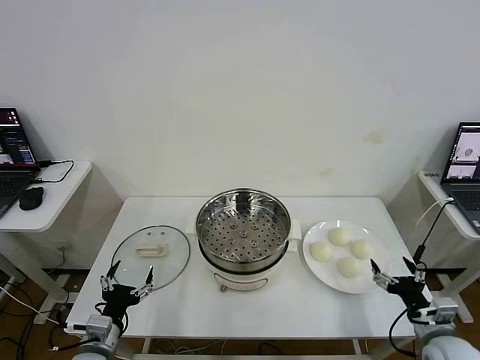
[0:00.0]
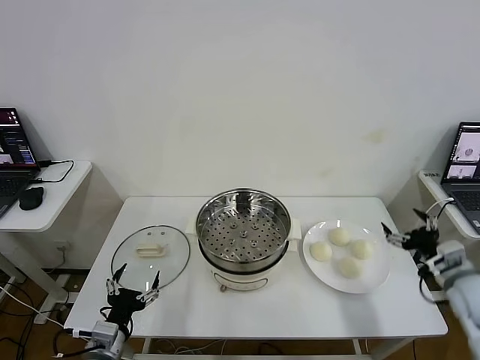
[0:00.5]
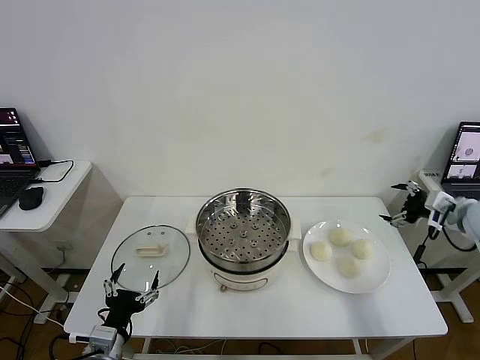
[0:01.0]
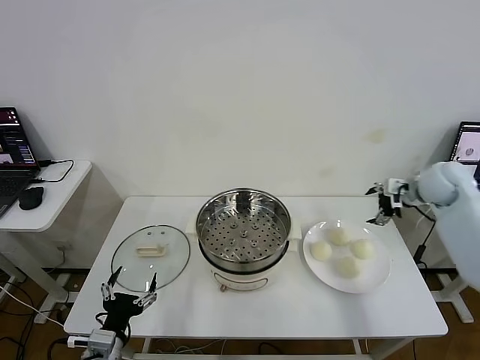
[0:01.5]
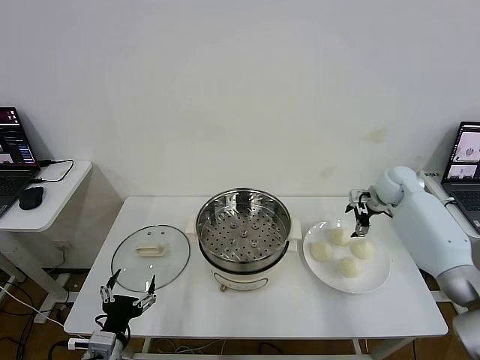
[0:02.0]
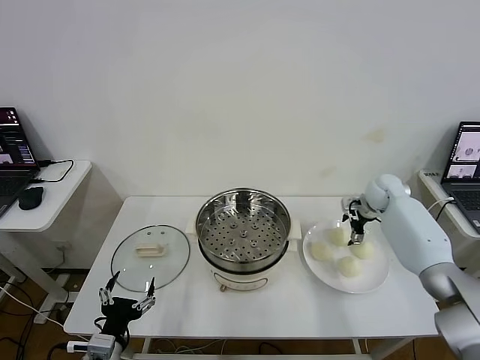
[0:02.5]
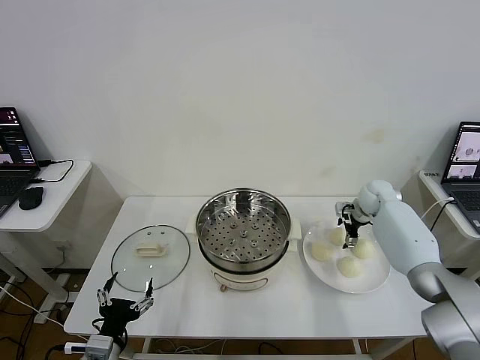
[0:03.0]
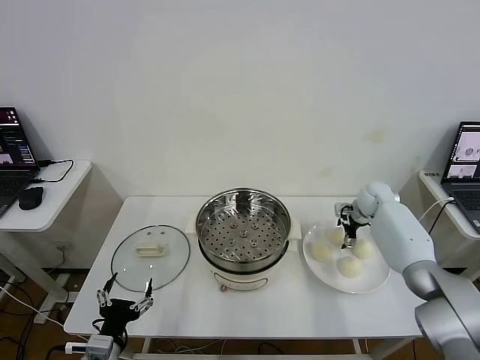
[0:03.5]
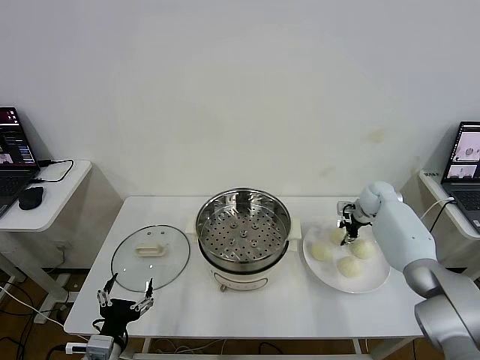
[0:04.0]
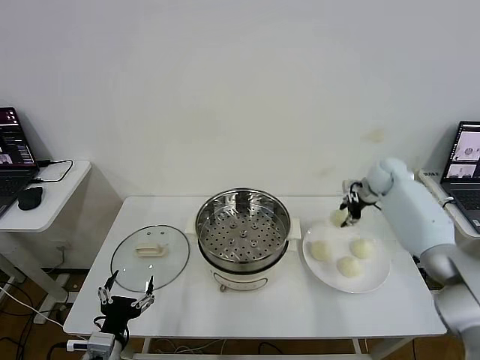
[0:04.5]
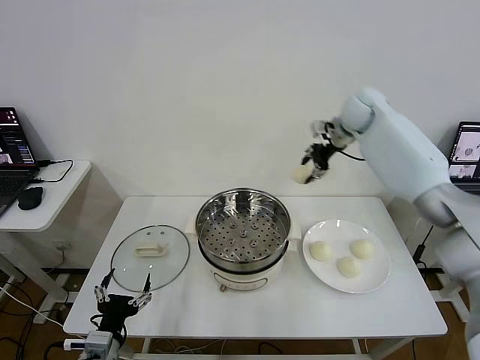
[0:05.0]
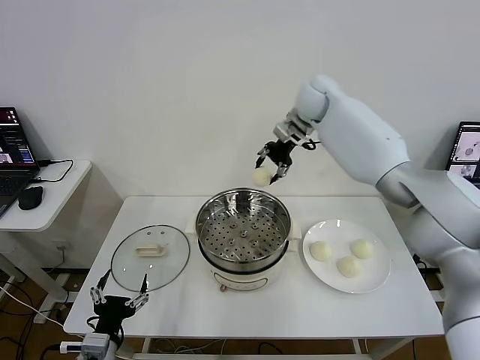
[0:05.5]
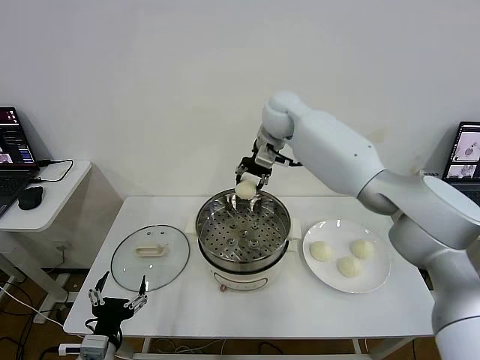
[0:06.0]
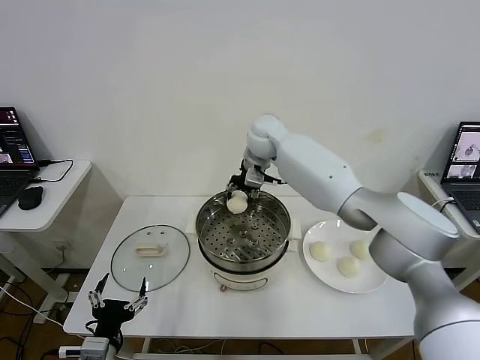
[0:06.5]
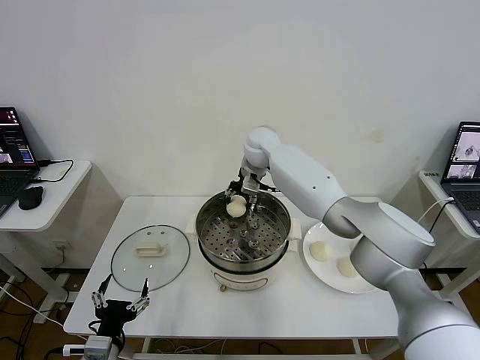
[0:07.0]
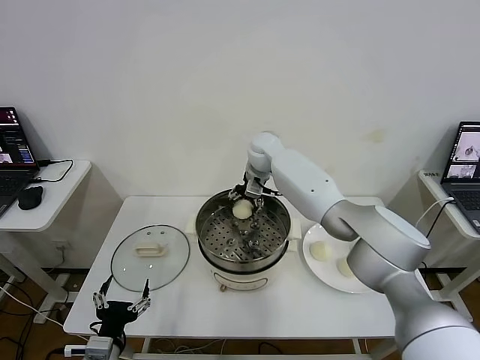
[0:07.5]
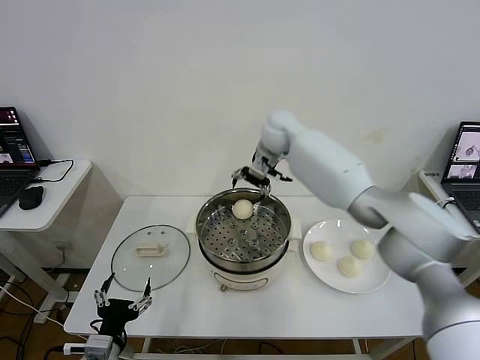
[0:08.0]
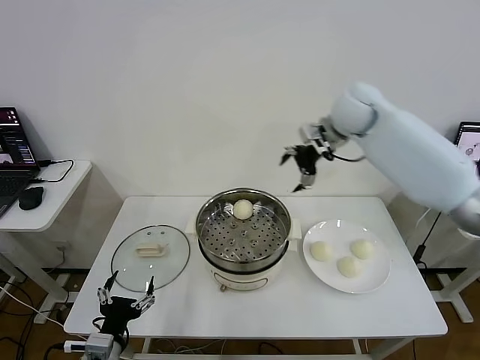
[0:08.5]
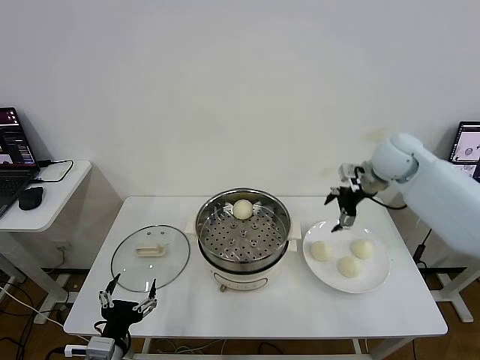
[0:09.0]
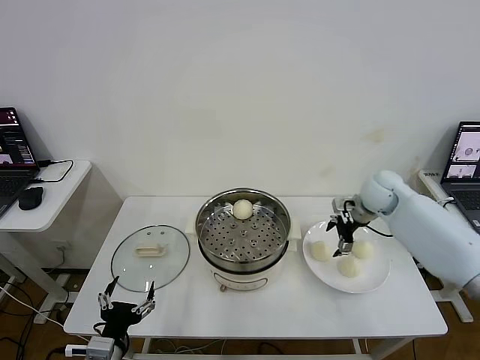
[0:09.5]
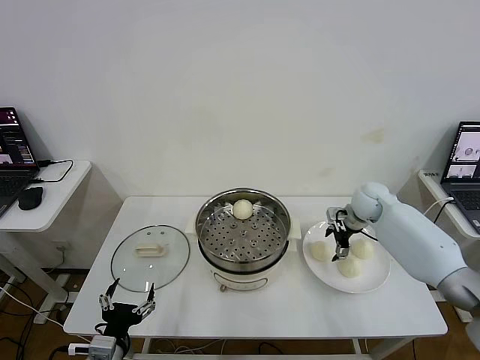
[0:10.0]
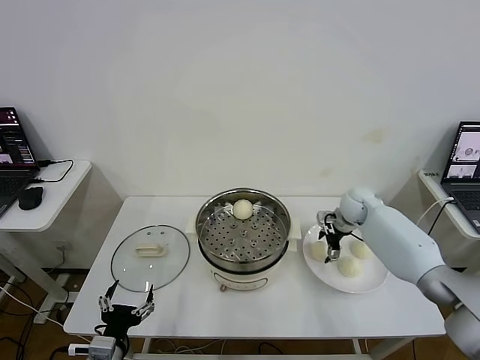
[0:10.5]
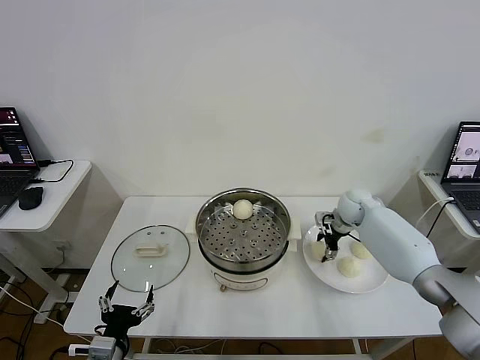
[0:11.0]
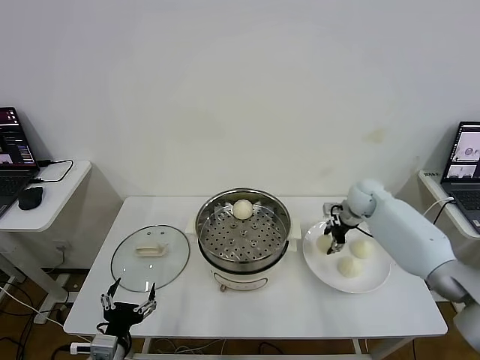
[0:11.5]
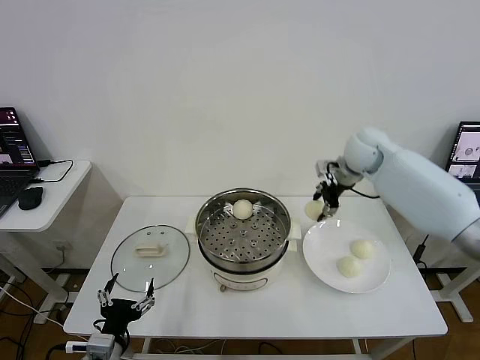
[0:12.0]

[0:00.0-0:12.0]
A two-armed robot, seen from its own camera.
Task of the whole recording: take steamed baozi put them in steamer then cover it.
Step, 0.0 to 3.5 s: Grasp the baozi in the plate with right gripper.
Step, 4.0 to 7.5 s: Place the baozi on the steamer with right gripper.
Step, 8.0 to 11.0 s: Grasp the baozi in the plate with right gripper.
2.0 to 4.0 s: The right gripper heads downward, covering about 5 cm, and closes its fingers.
4.0 to 6.0 s: The right gripper heads to the left and upward, covering some 40 cm.
6.0 to 8.0 s: The right gripper opens up.
8.0 to 10.0 s: The right gripper is displaced to the right and downward by approximately 30 cm.
10.0 to 12.0 s: The right gripper shifts some 15 cm upward, and closes its fingers.

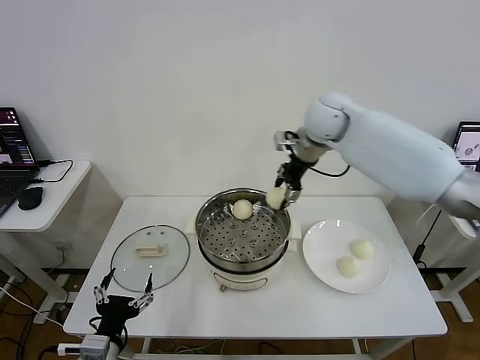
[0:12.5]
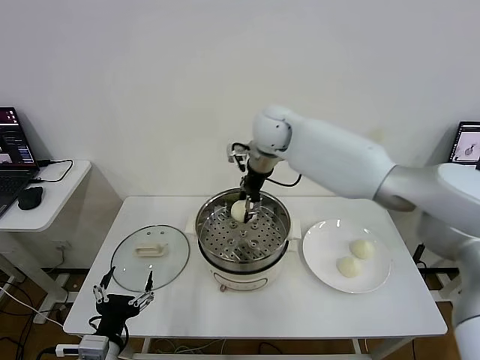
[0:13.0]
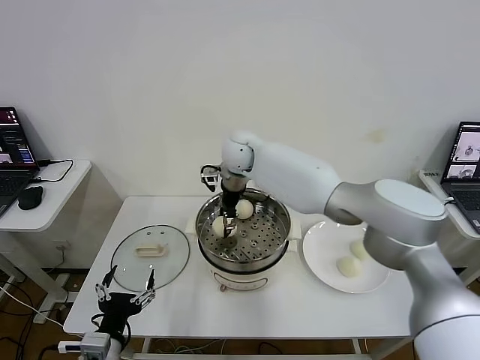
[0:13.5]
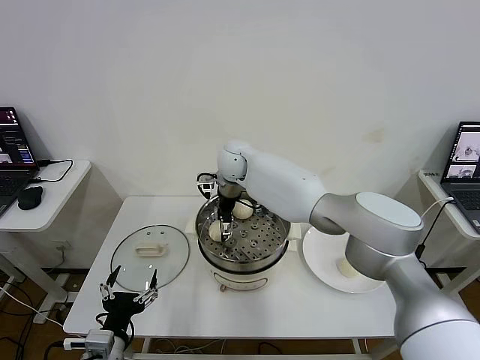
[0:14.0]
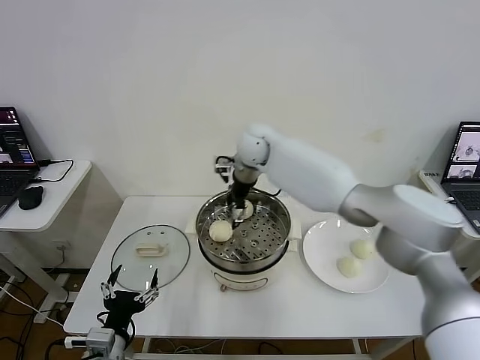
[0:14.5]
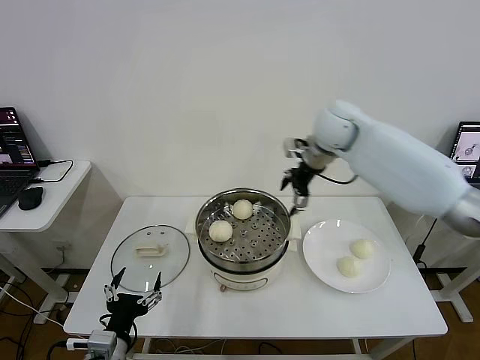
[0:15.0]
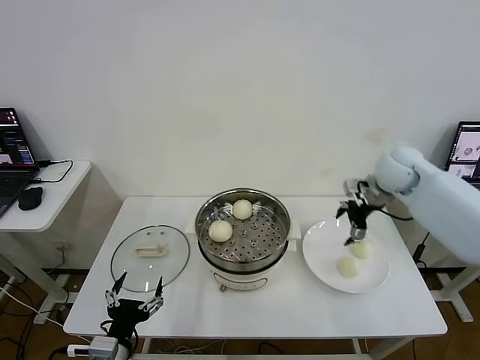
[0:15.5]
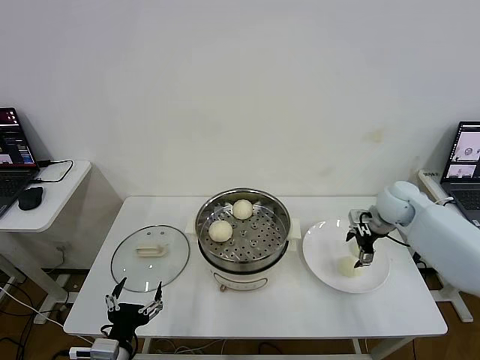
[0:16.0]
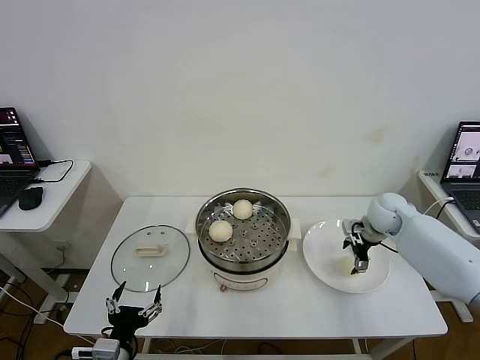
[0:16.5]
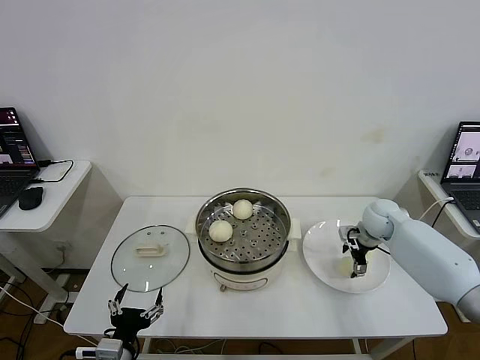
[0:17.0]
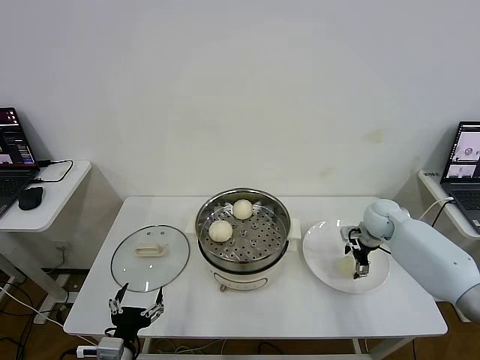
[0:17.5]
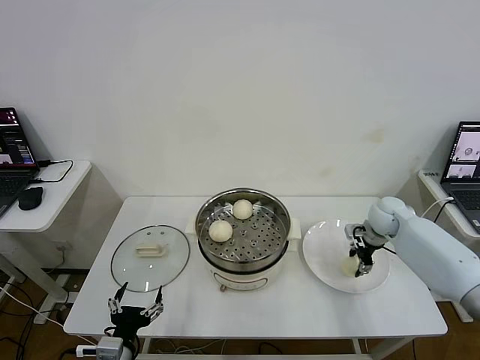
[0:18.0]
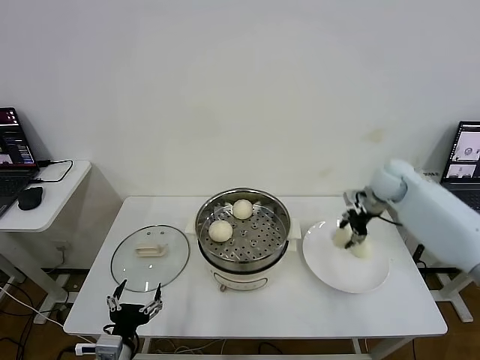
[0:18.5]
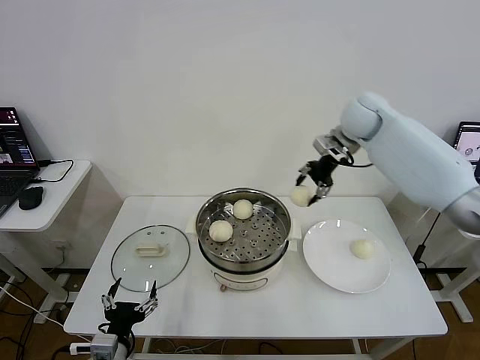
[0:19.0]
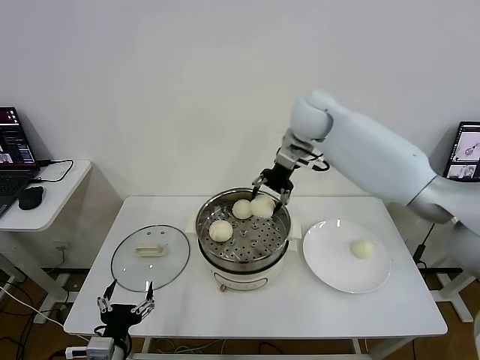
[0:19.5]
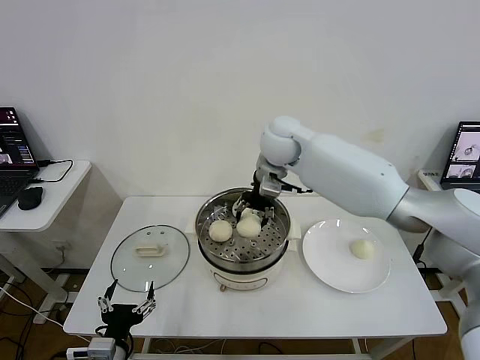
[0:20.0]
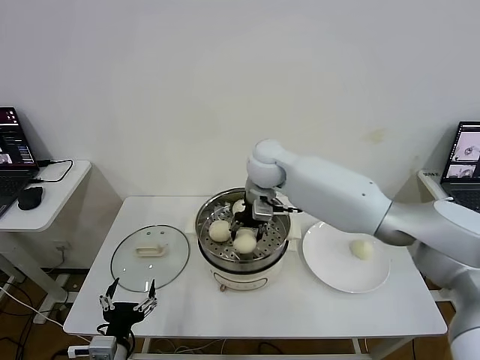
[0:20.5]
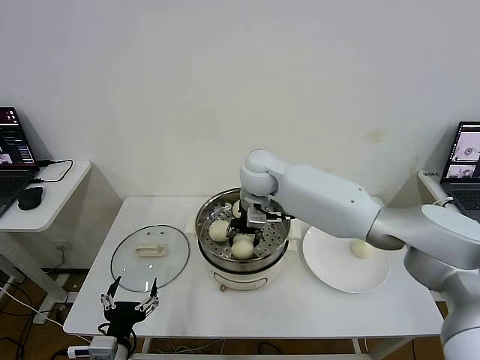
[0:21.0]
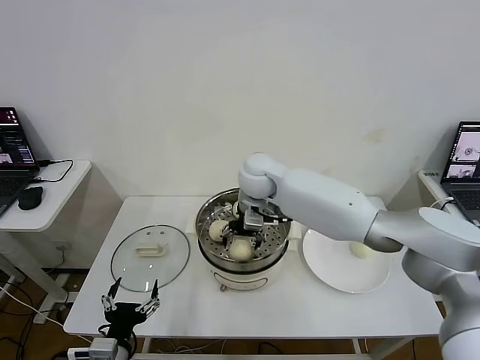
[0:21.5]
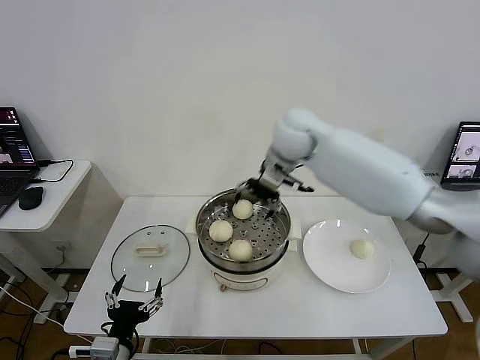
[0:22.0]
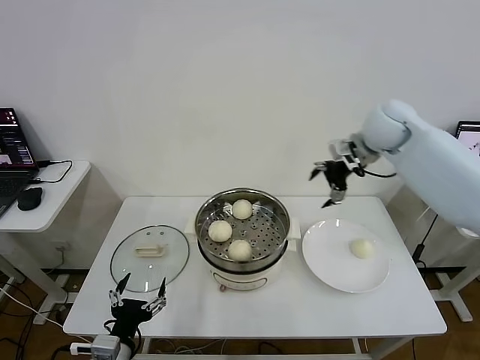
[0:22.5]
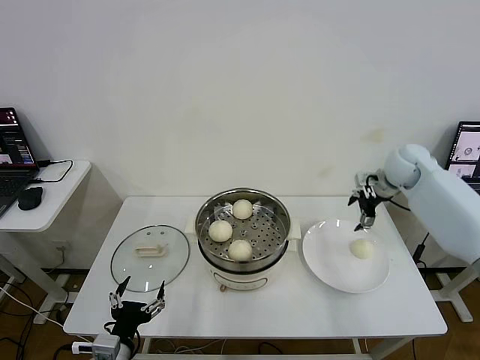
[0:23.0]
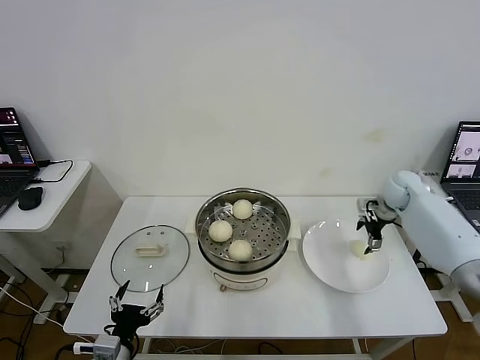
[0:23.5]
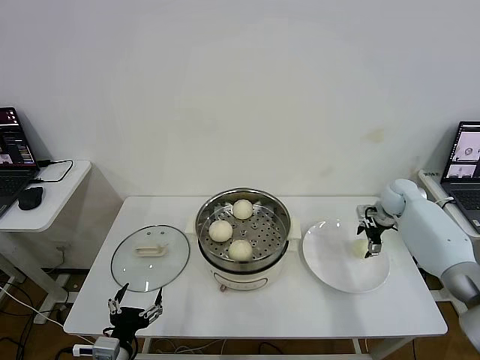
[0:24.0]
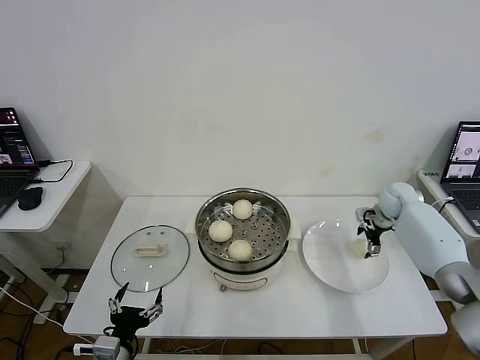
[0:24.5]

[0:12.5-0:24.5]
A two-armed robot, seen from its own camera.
Task of the whole recording: take steamed baozi put them in steamer then cover it.
Step, 12.5 to 14.0 s: Place the baozi on the steamer with right gripper.
Step, 14.5 to 17.5 s: Grasp the baozi in the plate with right gripper.
Step, 18.0 to 21.5 s: Place the baozi on the steamer with right gripper.
12.5 to 14.5 s: The right gripper shifts roughly 15 cm to the left and downward, and opens up.
14.5 to 16.5 s: The right gripper heads to the right and downward, covering approximately 35 cm.
16.5 to 18.5 s: The right gripper shifts roughly 10 cm upward, and closes its fingers.
18.5 to 20.5 s: The right gripper travels to the left by approximately 30 cm.
20.5 to 22.5 s: The right gripper shifts some 25 cm to the right, and opens up.
22.5 to 24.5 s: The right gripper travels downward and to the right by about 25 cm.

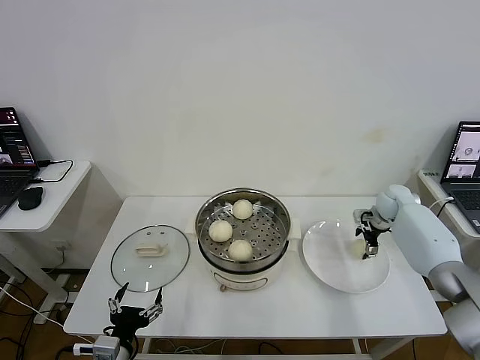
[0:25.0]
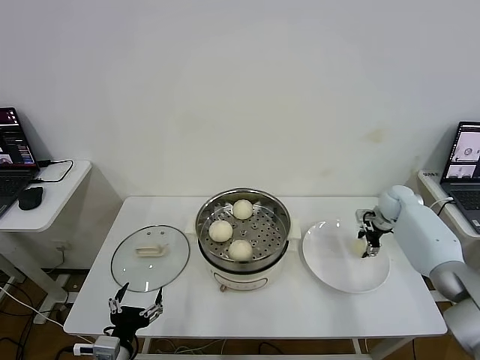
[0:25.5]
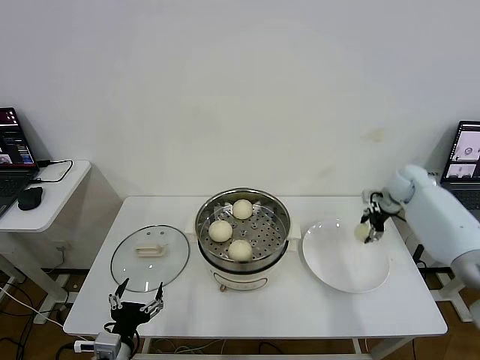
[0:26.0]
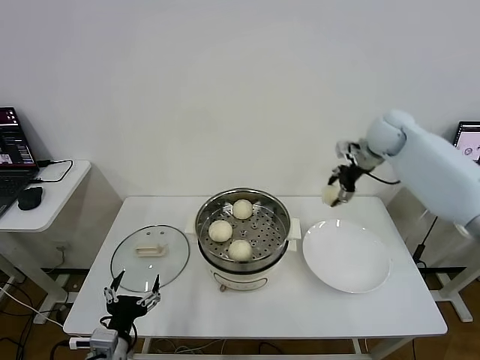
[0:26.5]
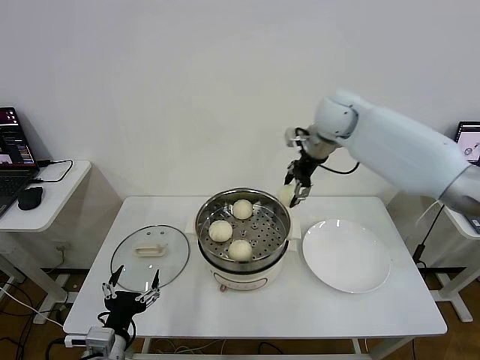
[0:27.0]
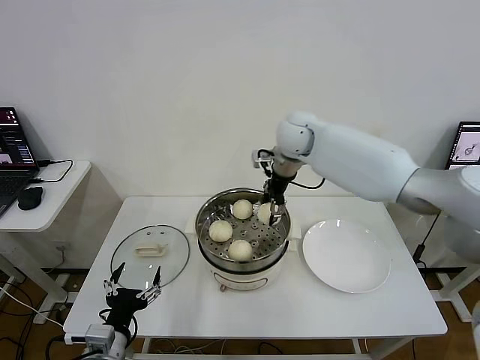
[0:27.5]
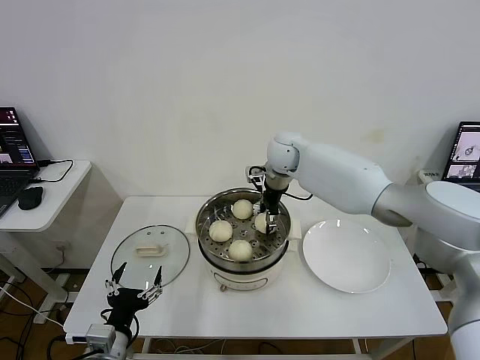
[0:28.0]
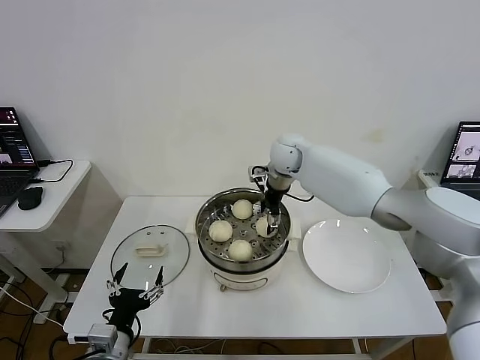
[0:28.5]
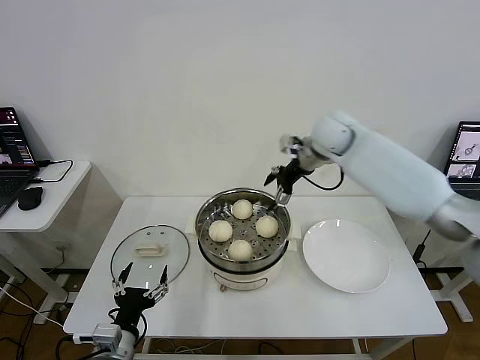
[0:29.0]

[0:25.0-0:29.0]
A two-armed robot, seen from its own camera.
Task of the whole recording: take steamed baozi put them in steamer then cover it.
Step, 26.0 to 28.5 s: Place the baozi on the steamer with right gripper.
25.0 to 27.0 s: The right gripper travels upward and to the left by about 35 cm, and closes its fingers.
27.0 to 29.0 s: The right gripper opens up.
